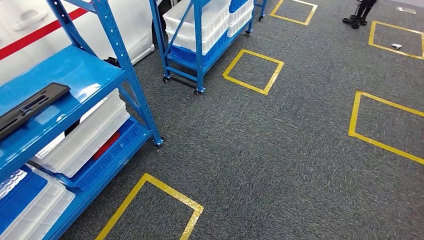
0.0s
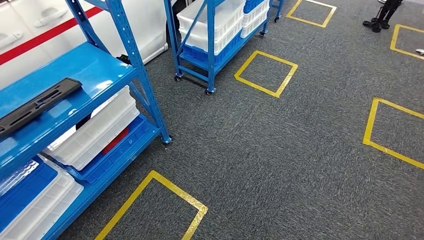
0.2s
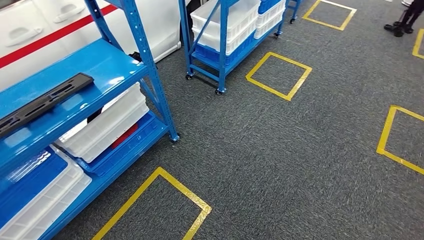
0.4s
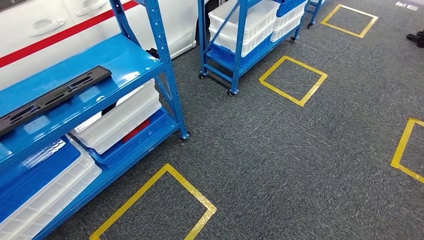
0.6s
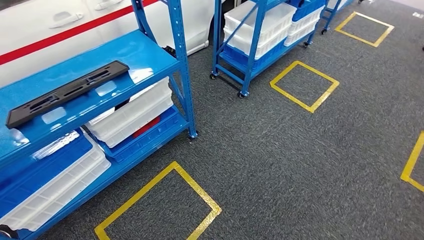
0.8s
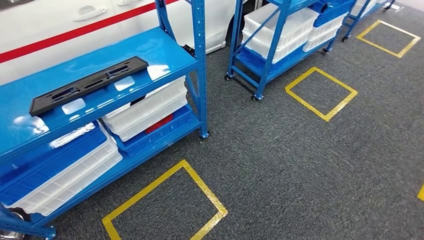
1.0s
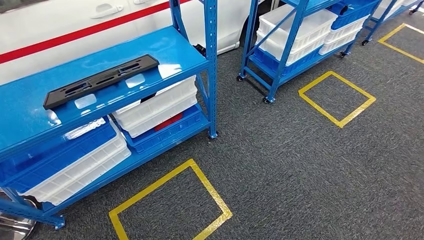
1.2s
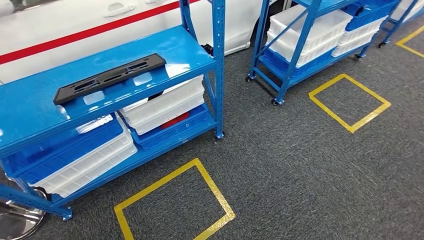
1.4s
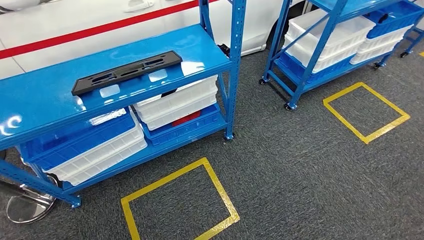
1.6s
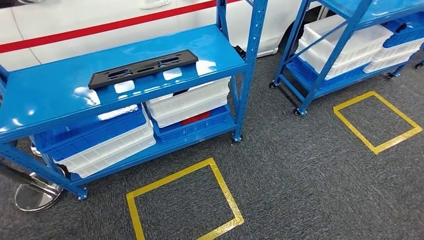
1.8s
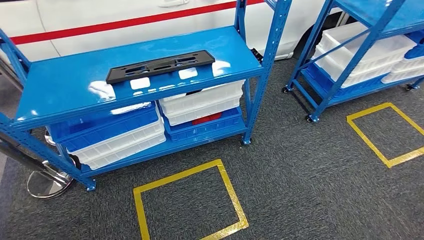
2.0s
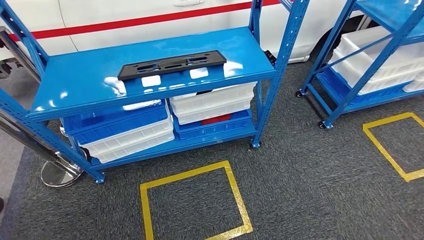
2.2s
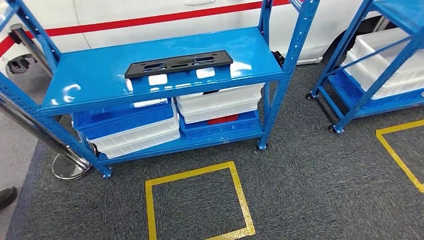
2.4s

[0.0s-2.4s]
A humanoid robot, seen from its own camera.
Step, 0.0s to 2.4s: Return to the initial position at the shelf.
